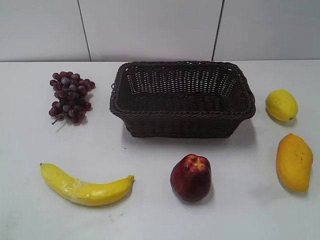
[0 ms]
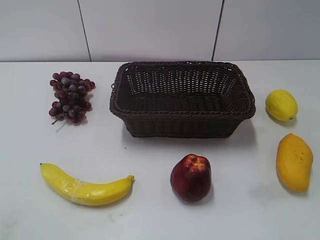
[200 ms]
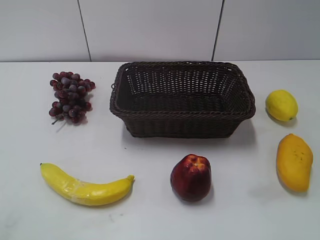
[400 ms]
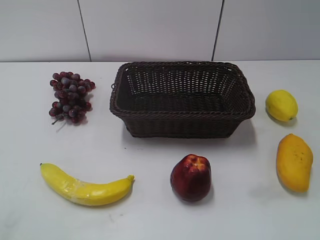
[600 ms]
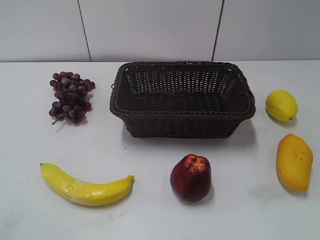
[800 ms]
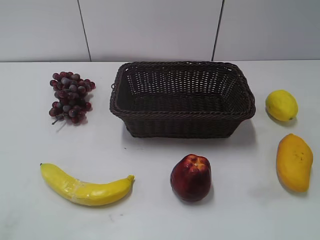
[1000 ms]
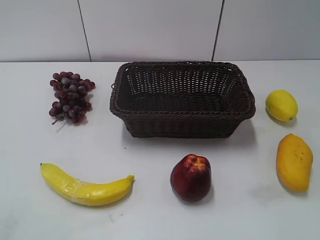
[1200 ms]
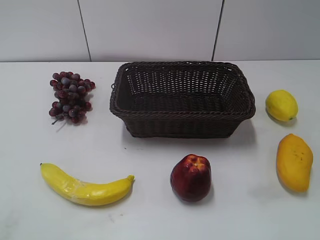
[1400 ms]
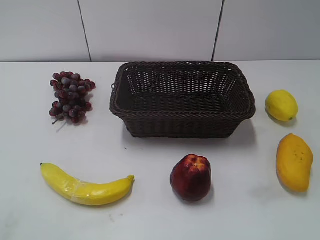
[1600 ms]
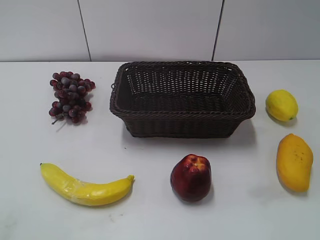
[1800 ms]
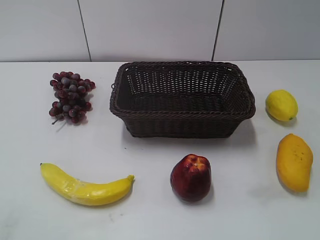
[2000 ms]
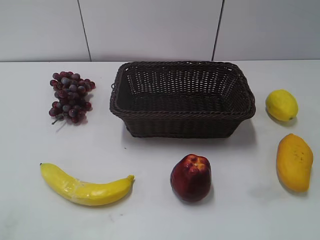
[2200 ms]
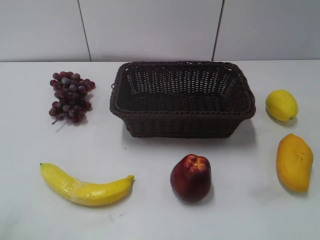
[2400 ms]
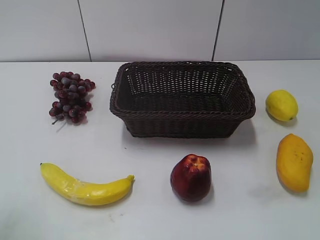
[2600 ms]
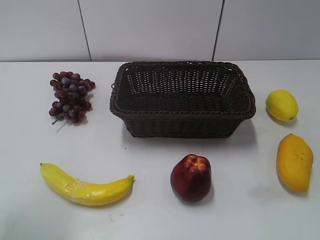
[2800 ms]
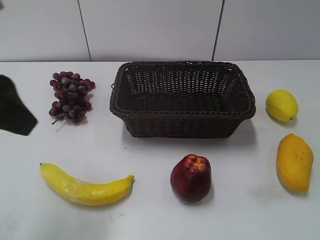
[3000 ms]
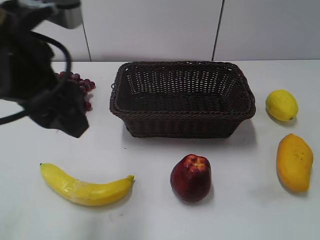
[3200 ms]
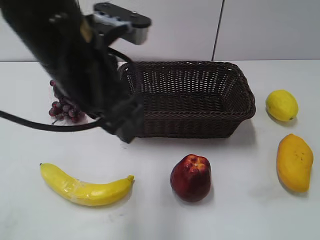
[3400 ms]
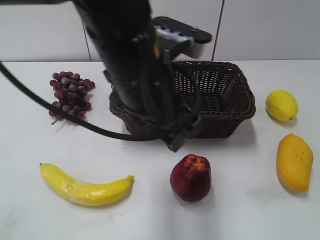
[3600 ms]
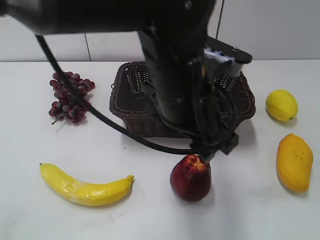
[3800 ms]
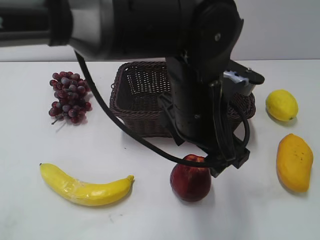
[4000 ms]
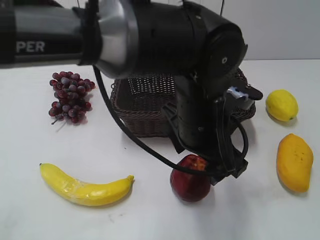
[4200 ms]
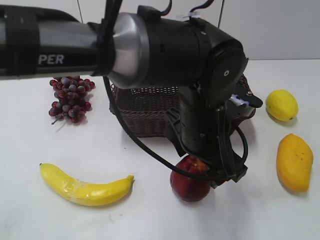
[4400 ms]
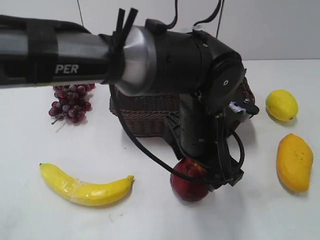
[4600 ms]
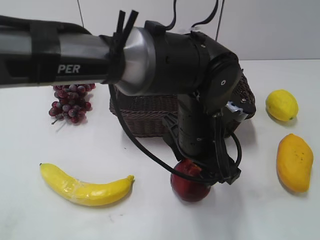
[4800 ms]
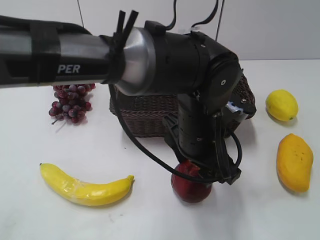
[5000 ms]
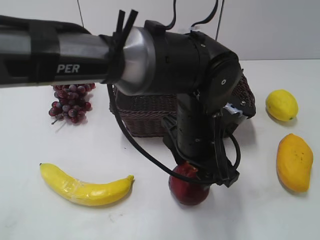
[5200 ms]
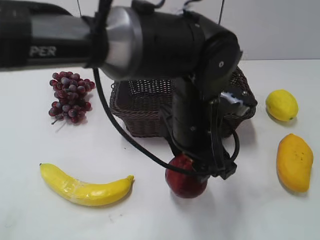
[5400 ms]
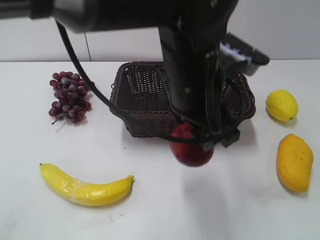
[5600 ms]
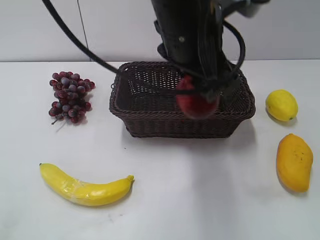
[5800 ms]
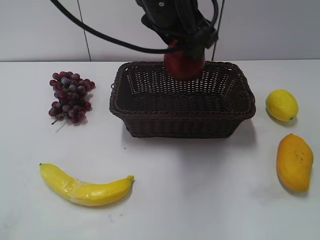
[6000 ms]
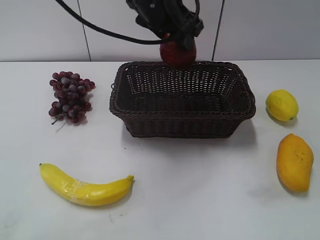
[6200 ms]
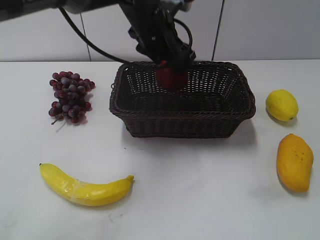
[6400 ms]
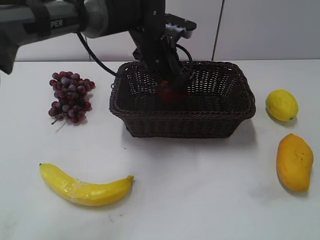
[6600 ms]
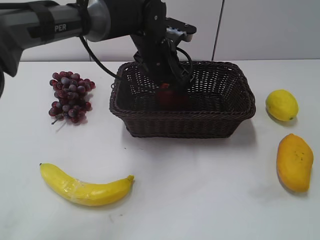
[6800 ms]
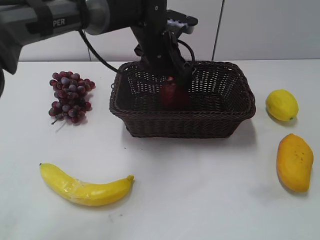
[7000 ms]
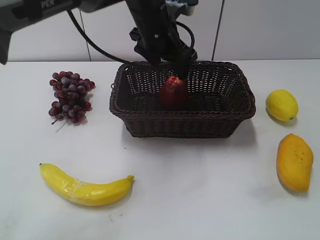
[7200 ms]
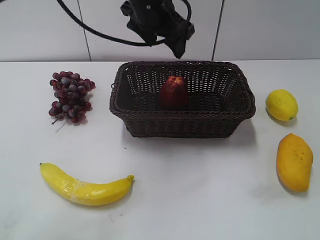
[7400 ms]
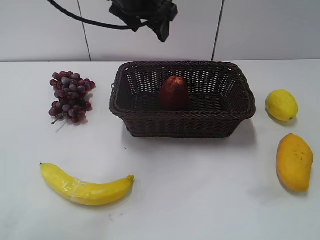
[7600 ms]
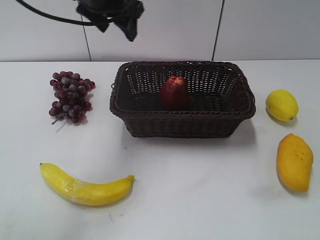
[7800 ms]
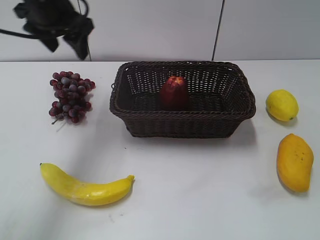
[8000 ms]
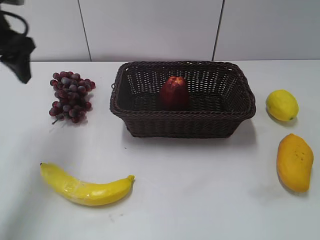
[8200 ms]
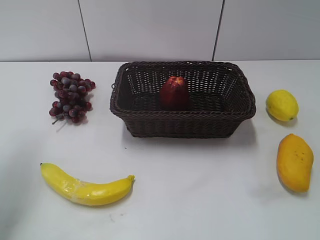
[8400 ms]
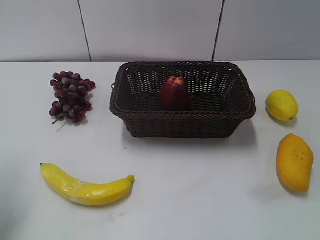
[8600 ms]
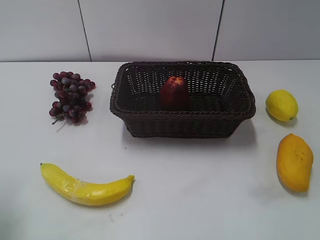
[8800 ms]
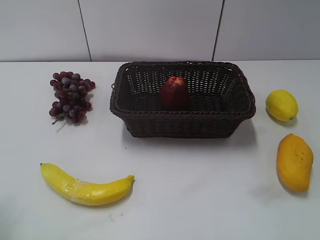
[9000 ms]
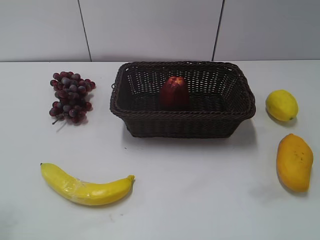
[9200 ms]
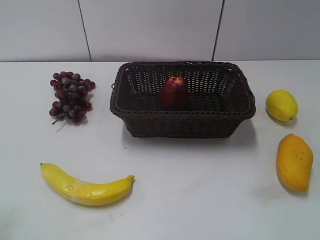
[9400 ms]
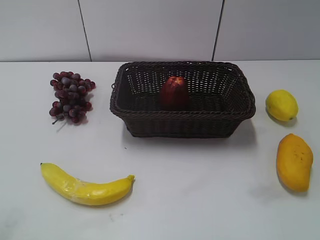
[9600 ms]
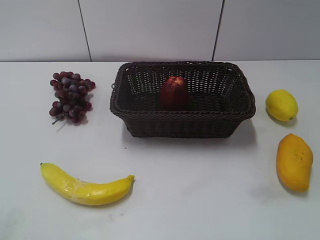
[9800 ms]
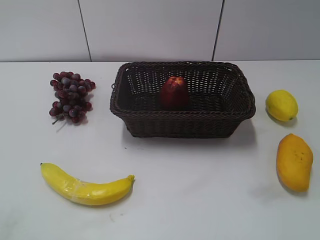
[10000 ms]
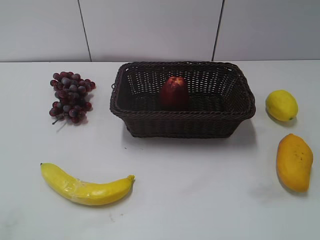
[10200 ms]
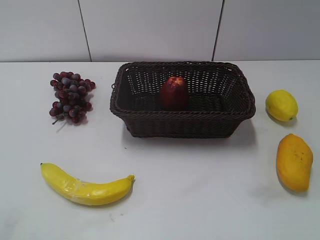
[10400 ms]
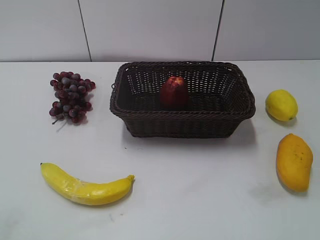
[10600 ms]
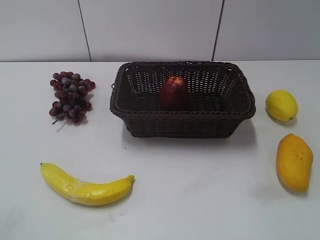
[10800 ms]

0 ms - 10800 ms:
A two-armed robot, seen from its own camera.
Step, 3000 ms - 4800 ms: Grasp the apple with left gripper.
Step, 5000 ms - 6800 ms: Place the apple in the basket with left gripper.
1600 ms - 3000 ms: The left gripper heads forward and to the right, covering roughly 20 cm.
3000 ms - 4600 ms: The left gripper heads to the right and downward, covering approximately 35 cm, and opens its fingers.
4600 ms - 6200 ms: The left gripper moves upward, forward and to the left, some 20 cm, and closes its fingers.
6200 ms - 7800 ms: The left gripper shifts roughly 10 cm forward and to the left, reaches some 15 cm downward, then returns, and opens.
7800 ms - 9200 ms: The left gripper goes roughly 35 cm backward and to the left.
